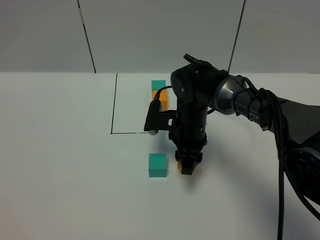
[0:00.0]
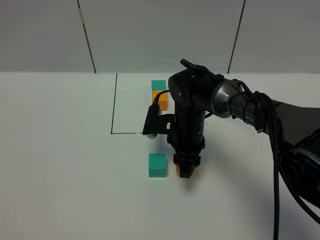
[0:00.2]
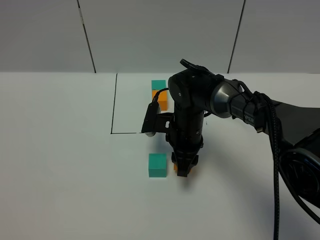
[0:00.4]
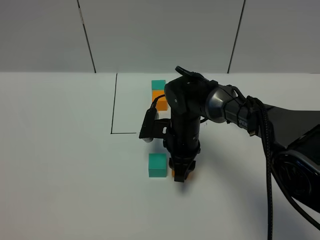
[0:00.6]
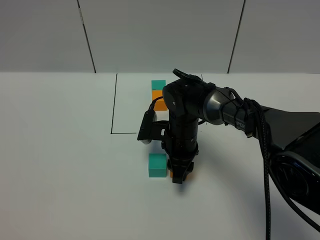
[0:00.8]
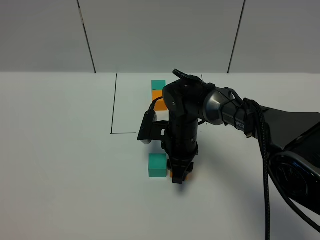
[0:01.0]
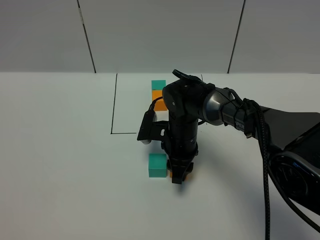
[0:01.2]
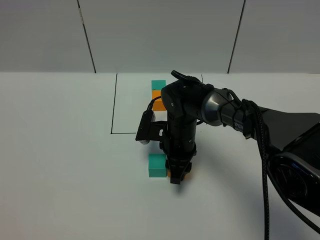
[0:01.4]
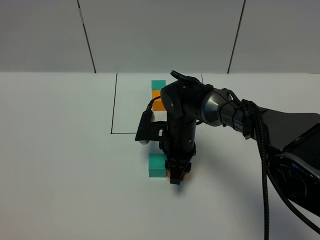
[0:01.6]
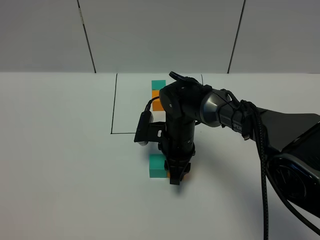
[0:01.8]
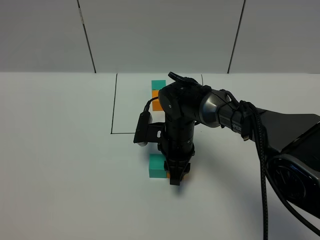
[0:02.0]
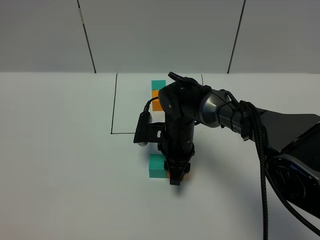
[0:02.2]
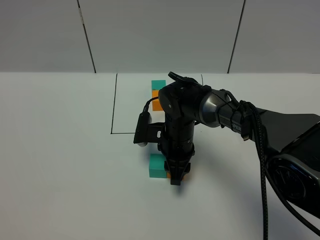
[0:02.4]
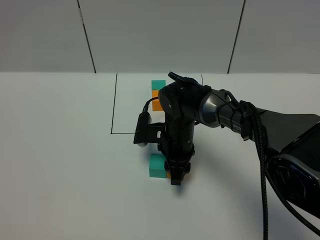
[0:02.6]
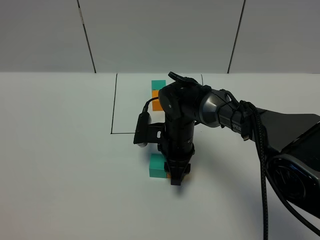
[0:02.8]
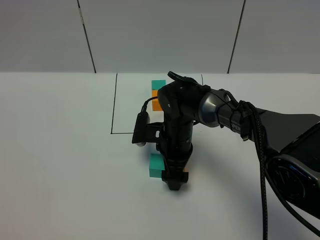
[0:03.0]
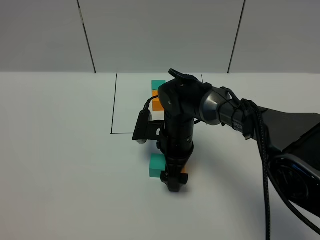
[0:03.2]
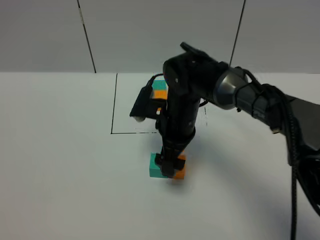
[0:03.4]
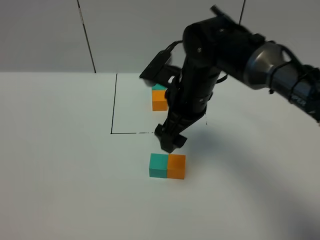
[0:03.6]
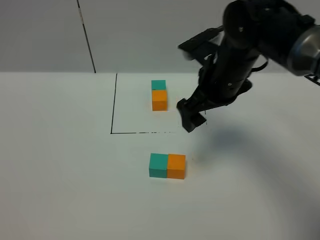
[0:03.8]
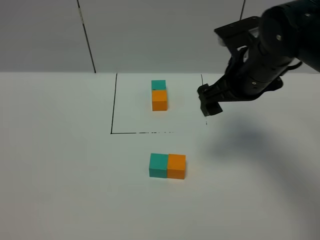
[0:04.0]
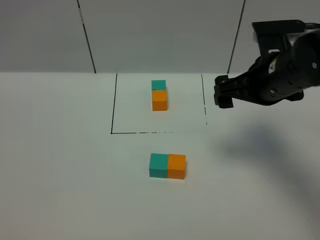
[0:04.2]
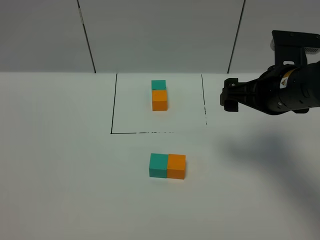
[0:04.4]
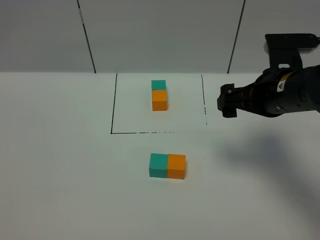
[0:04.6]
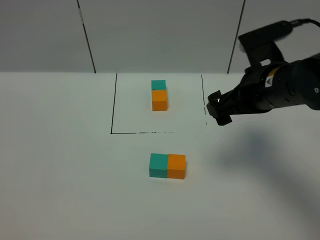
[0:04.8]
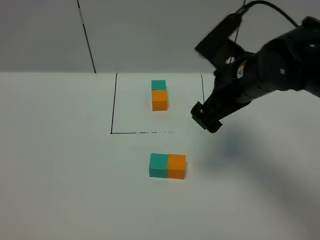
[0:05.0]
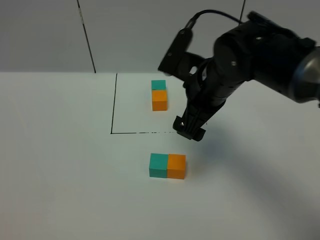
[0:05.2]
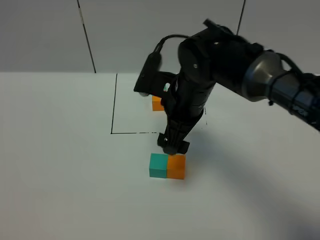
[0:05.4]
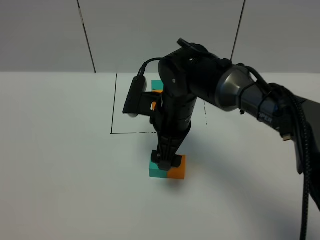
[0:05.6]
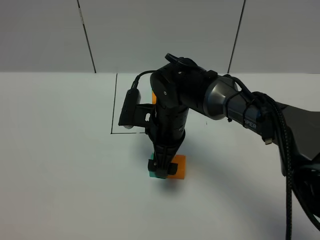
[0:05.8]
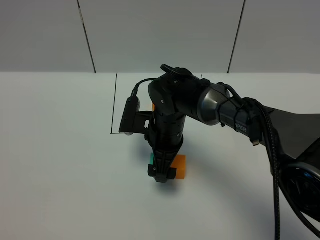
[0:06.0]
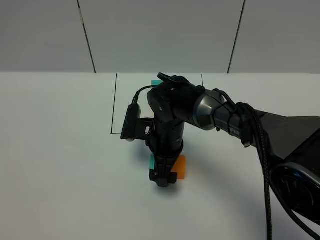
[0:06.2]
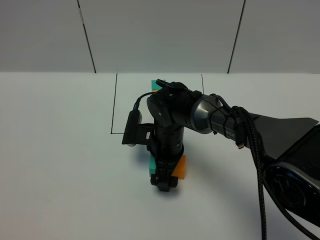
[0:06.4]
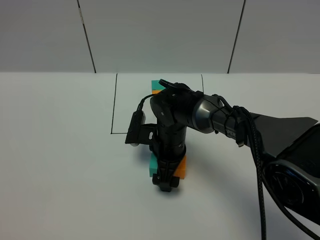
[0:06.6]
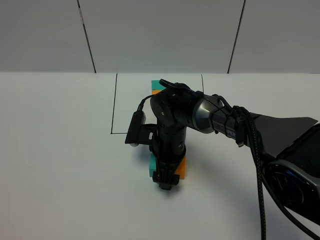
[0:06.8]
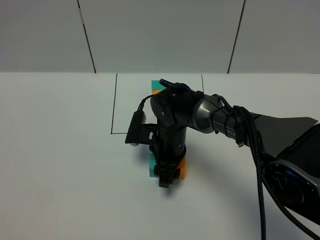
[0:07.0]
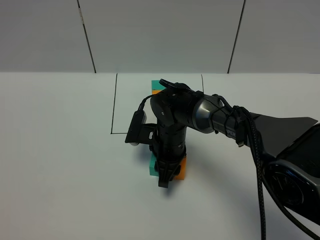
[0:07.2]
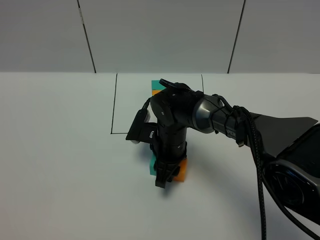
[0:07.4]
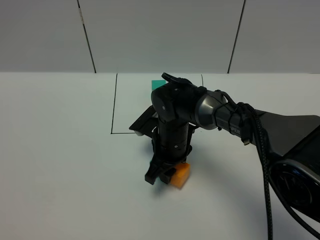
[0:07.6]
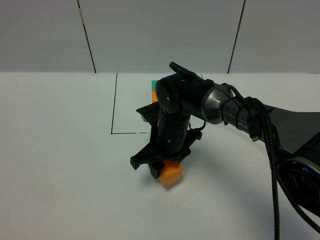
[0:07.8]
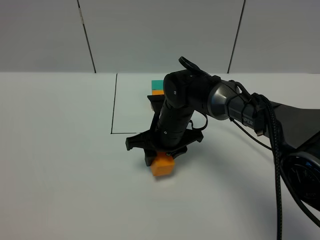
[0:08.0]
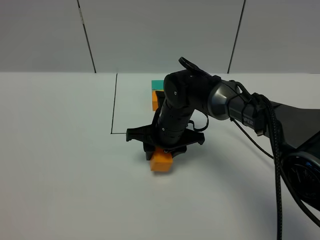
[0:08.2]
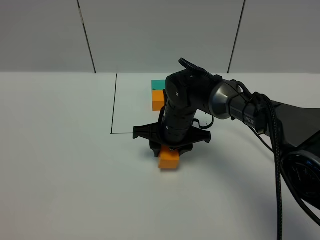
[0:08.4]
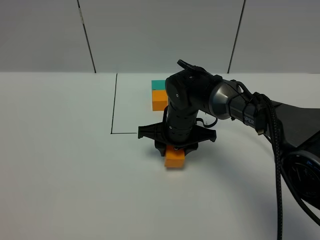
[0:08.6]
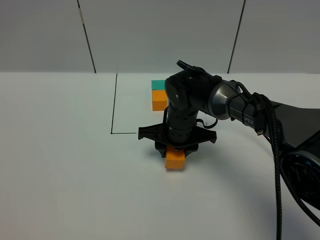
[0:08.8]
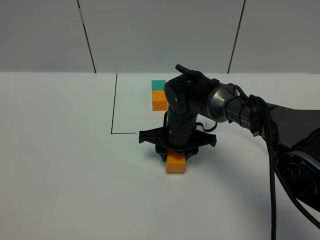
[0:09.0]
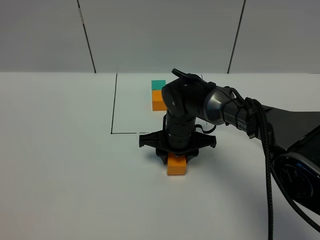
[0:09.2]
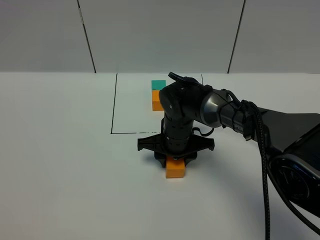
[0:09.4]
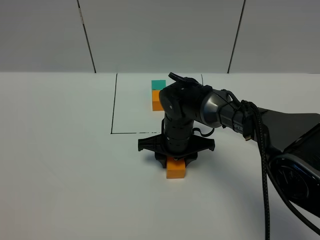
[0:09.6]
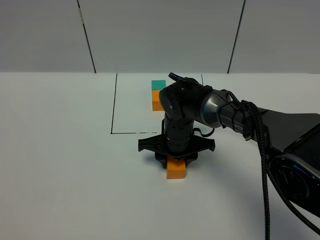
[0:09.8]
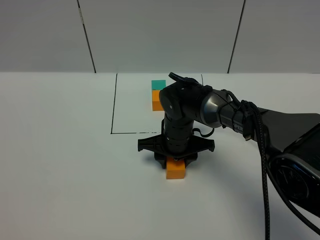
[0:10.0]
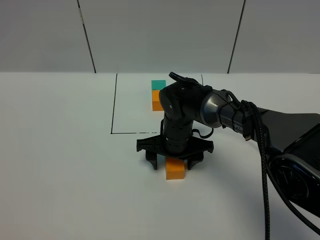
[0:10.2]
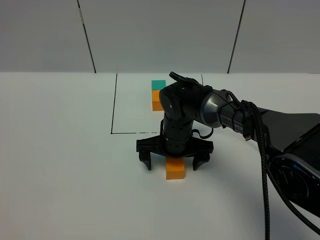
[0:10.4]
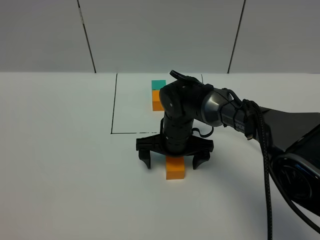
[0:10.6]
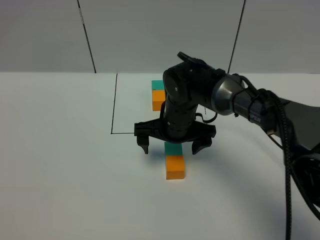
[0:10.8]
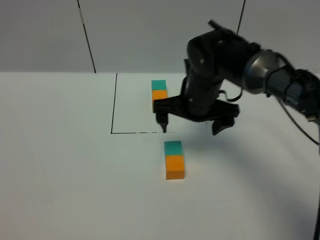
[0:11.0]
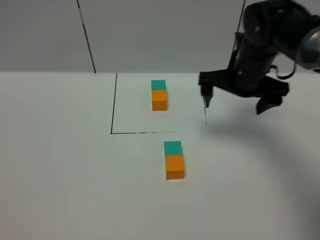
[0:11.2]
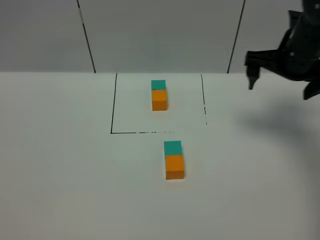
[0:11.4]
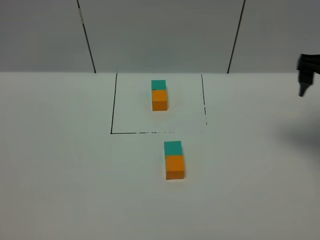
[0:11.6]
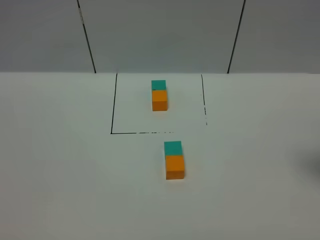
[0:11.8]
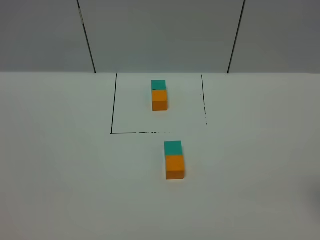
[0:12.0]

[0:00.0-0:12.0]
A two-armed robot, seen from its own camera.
Task of the whole recording: According to the building block template in front, assemble the scattered blocks together.
Step, 0.0 to 3.2 s: Put the orange cube on the right of the green cube.
Step, 3.4 to 10.6 s: Adjust the pose of the building blocks.
0.0 to 1.6 s: The grippers move only a little.
1.6 to 3.0 s: The right gripper opens up.
3.0 to 4.4 s: The right gripper travels upward and to the right by some 25 cm.
4.4 to 6.0 s: The right gripper shifts approximately 20 cm to the left and downward.
6.0 to 7.6 s: The right gripper closes up.
9.0 to 10.4 s: The right gripper opens.
10.4 to 12.0 s: The right gripper goes some 40 cm to the right, upward and backward.

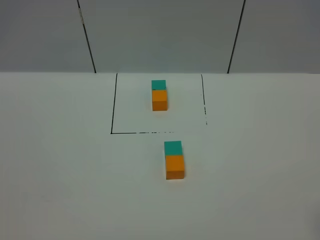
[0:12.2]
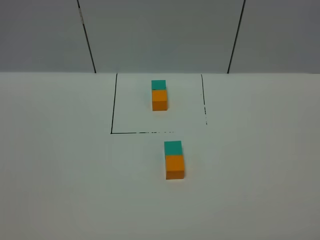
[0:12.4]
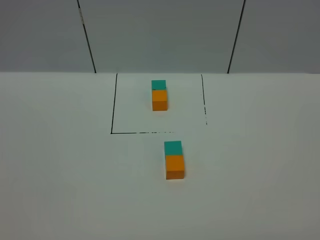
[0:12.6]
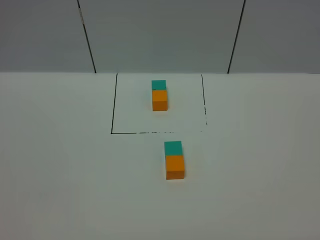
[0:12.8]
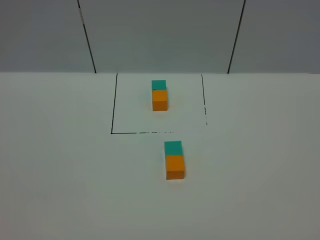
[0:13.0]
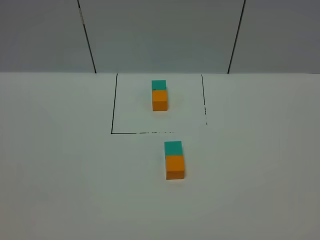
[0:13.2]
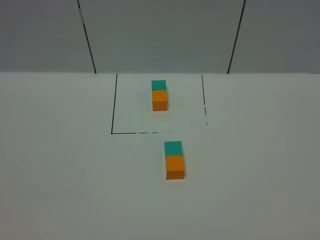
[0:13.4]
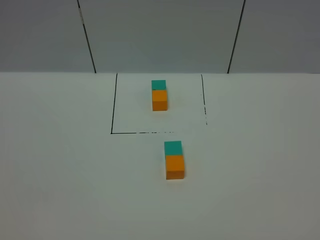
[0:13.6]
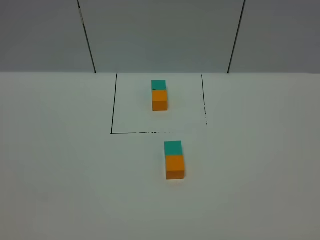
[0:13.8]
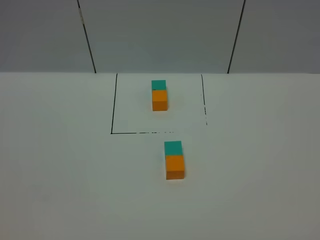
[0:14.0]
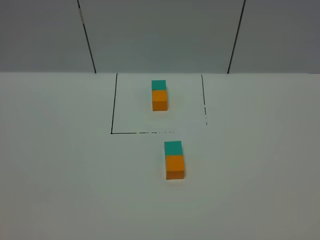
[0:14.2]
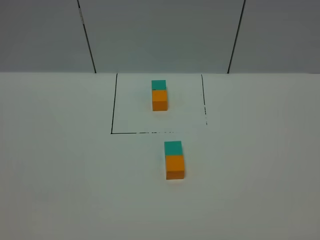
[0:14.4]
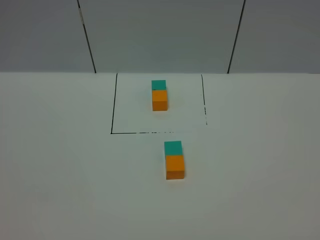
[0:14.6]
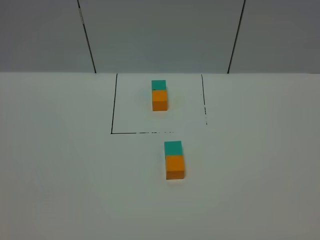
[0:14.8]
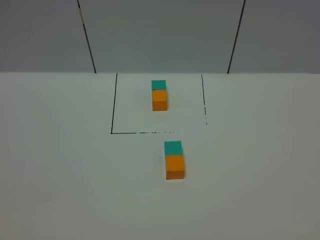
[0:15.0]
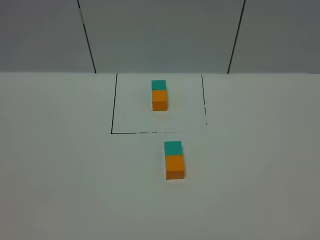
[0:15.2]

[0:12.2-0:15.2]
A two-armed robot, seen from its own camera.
Task of the whole recording: According to the building block template in front, assemble the scattered blocks together.
13.8 to 15.2 s: Neither gripper changes place.

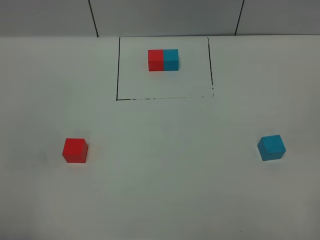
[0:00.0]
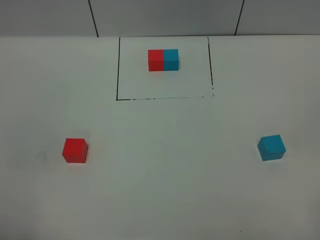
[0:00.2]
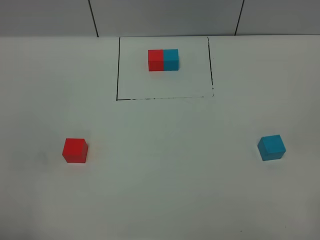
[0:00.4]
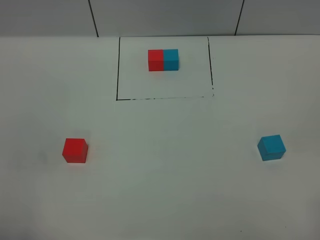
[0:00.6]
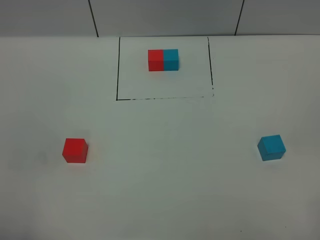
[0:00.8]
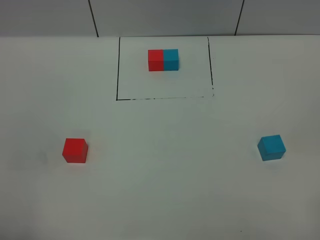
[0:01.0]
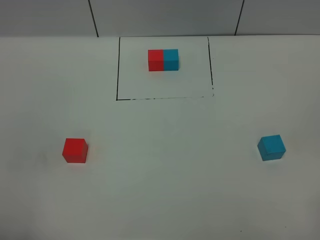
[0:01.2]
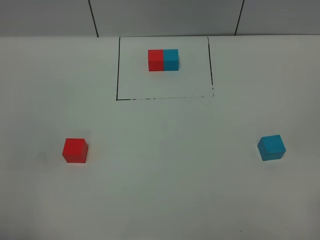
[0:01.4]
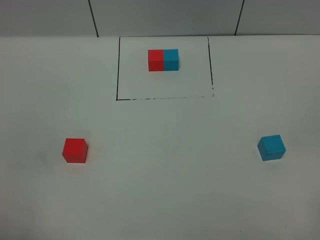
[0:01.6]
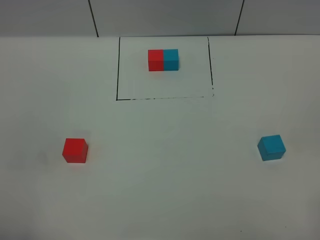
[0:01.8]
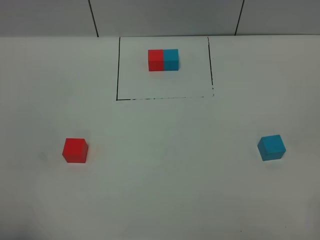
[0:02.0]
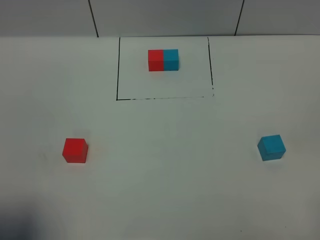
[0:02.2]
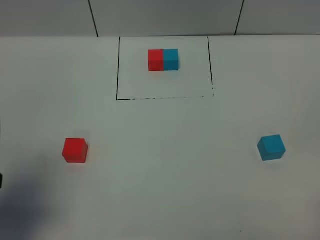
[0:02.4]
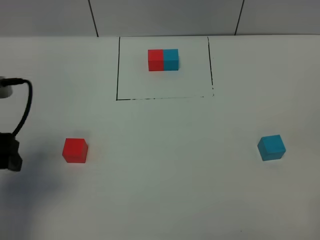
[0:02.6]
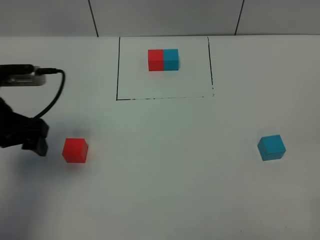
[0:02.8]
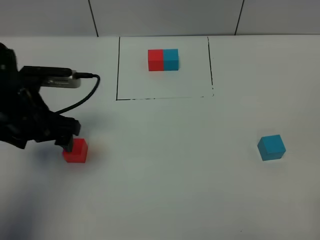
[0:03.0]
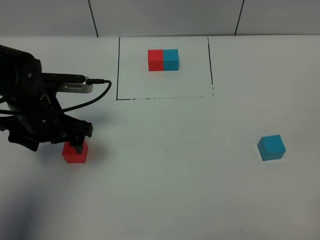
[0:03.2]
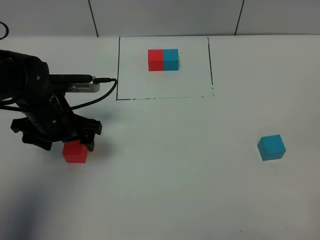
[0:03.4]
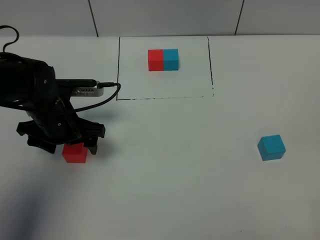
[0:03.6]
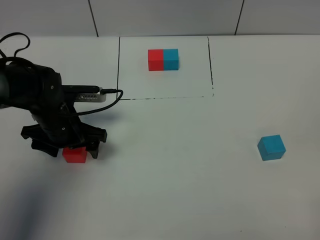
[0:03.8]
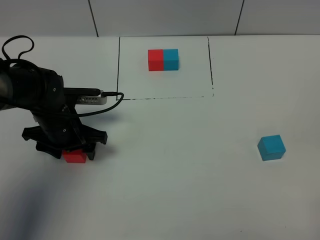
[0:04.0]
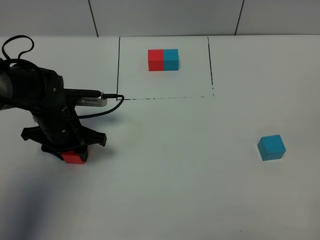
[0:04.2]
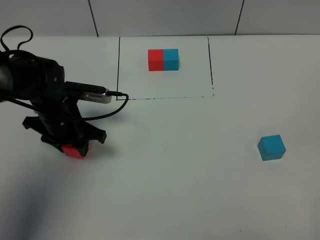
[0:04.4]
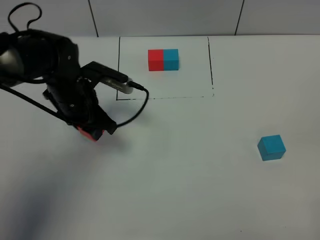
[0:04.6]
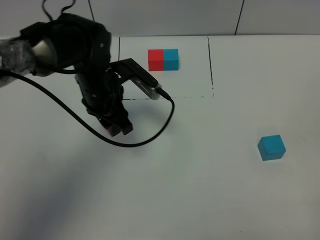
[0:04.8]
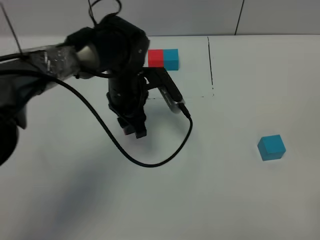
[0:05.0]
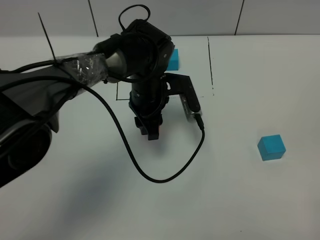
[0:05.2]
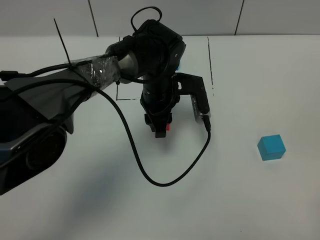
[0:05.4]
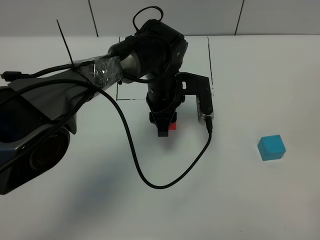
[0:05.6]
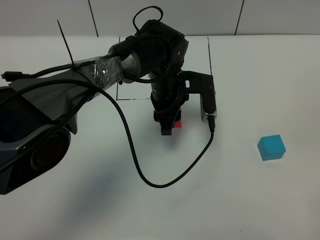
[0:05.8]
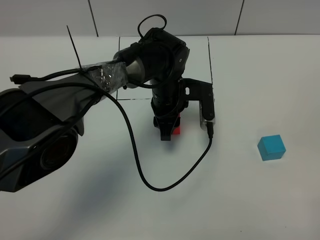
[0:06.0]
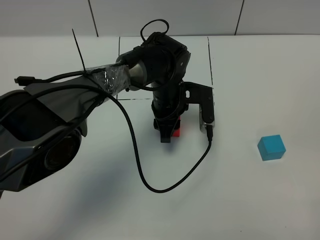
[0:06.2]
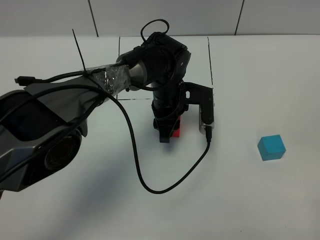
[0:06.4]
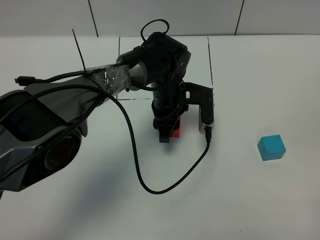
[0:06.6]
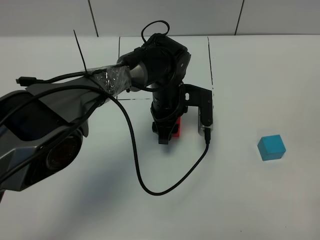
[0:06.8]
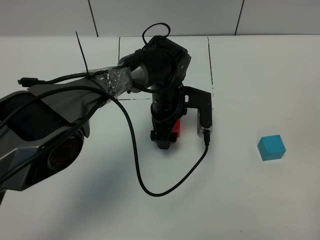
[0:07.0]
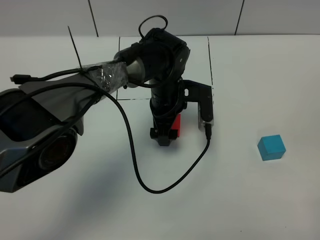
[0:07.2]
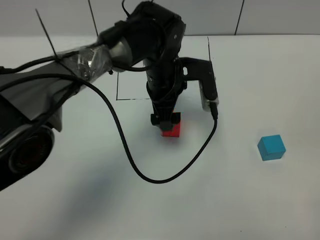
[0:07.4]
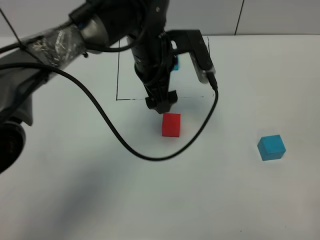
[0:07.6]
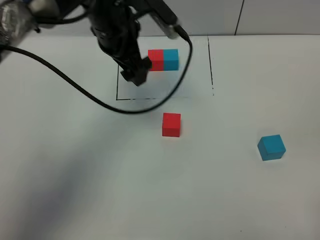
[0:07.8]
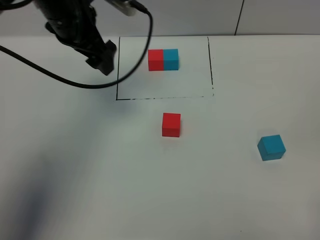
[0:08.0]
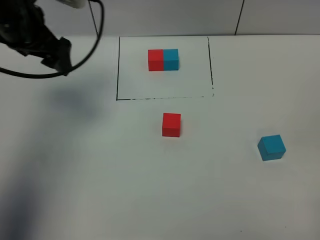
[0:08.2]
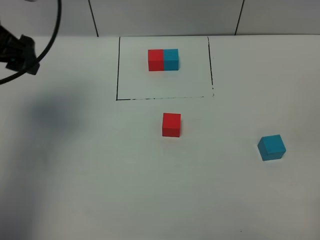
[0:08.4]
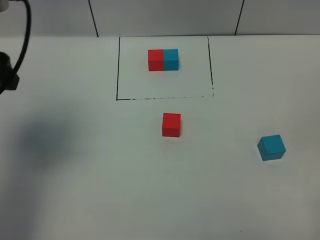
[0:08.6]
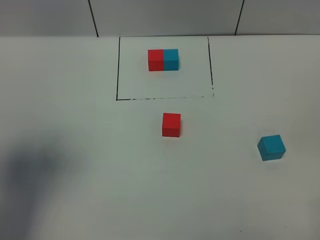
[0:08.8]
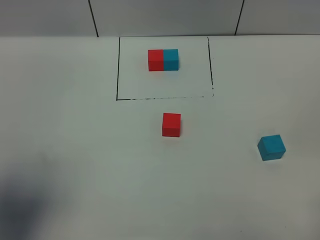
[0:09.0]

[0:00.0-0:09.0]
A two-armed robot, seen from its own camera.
Task of the whole recording: According to the building block template in front, assemble the scattered blocks together.
Step, 2.4 to 7.4 s: Put the red cube in the center of the table.
0.0 to 1.6 s: Neither gripper changes place.
1.6 to 3.0 s: The left gripper goes some 30 cm forward.
3.0 to 4.4 s: The left gripper moves downward, roughly 5 cm, and closes up.
4.4 to 6.0 s: The left gripper shifts roughly 20 cm to the right.
6.0 to 7.6 s: The left gripper travels upward by roughly 10 cm, and opens its fingers.
7.6 to 9.0 s: The left gripper travels backward, to the left and upward by about 40 cm.
